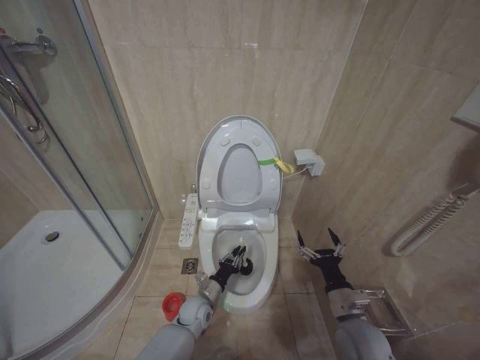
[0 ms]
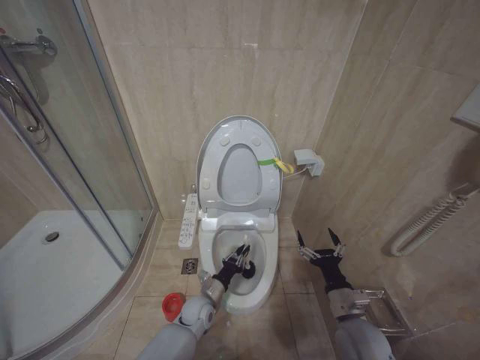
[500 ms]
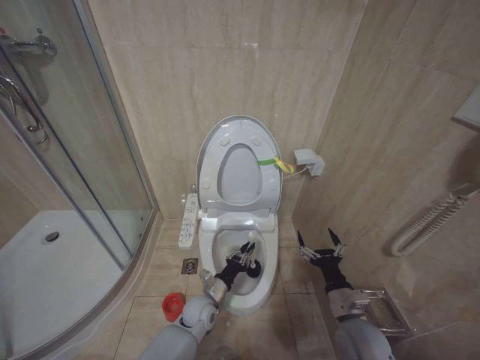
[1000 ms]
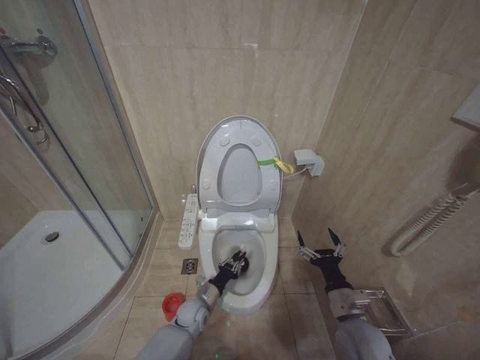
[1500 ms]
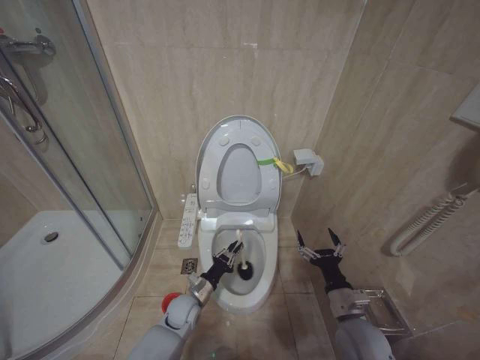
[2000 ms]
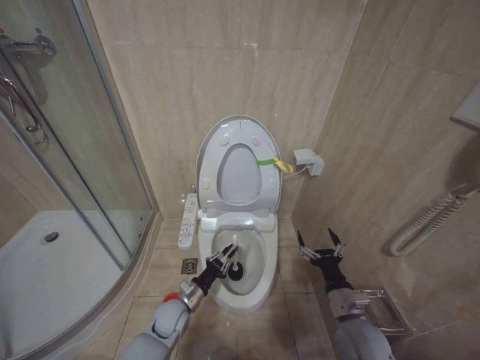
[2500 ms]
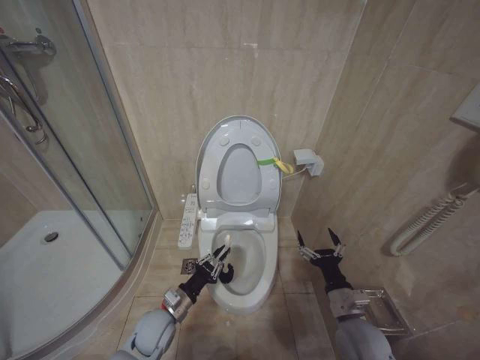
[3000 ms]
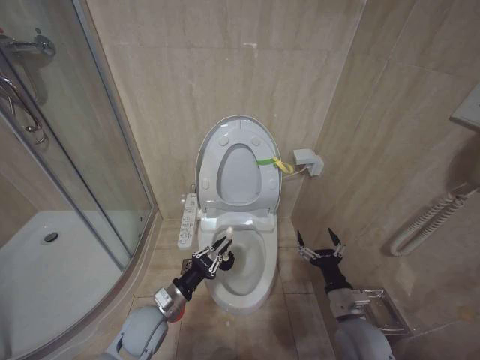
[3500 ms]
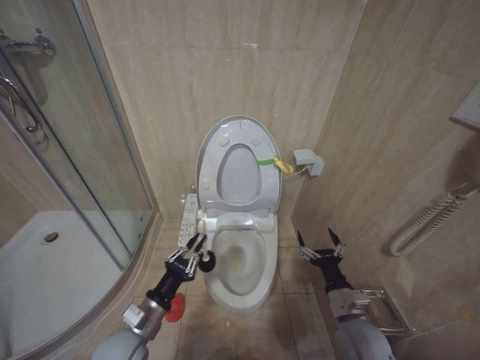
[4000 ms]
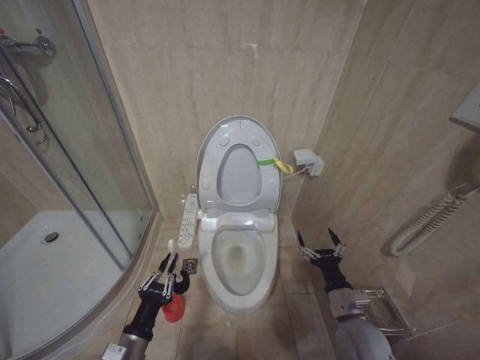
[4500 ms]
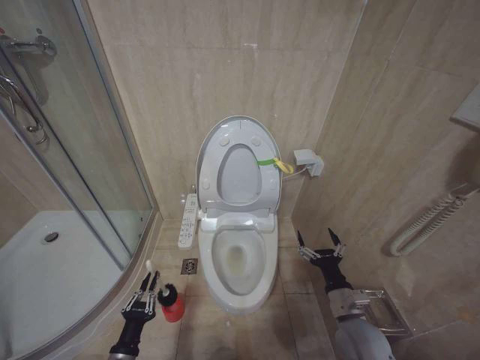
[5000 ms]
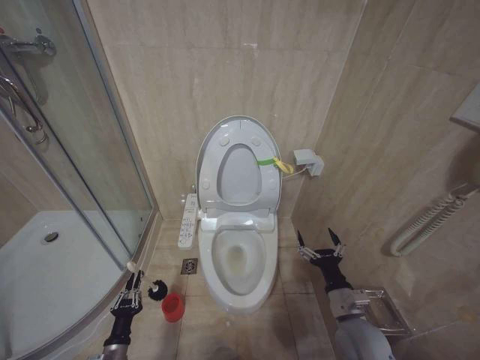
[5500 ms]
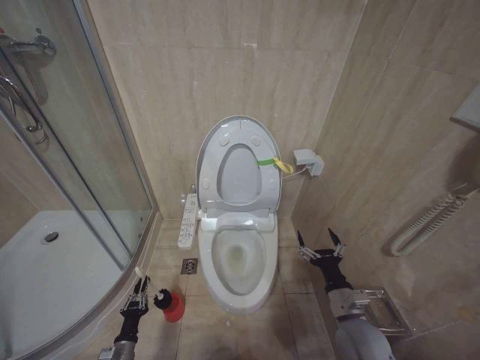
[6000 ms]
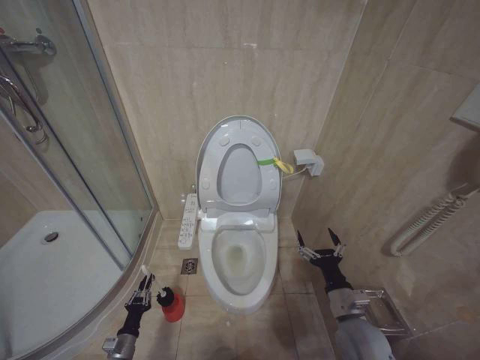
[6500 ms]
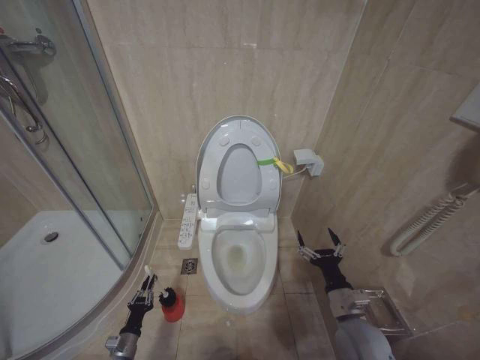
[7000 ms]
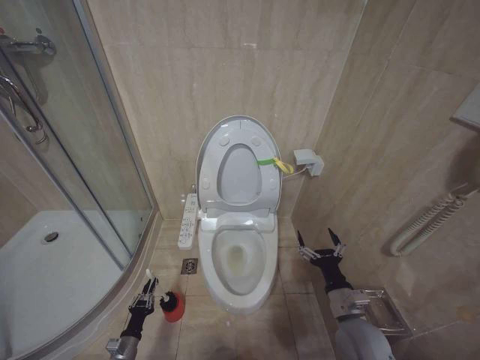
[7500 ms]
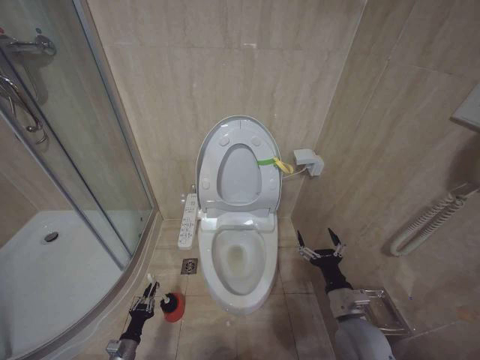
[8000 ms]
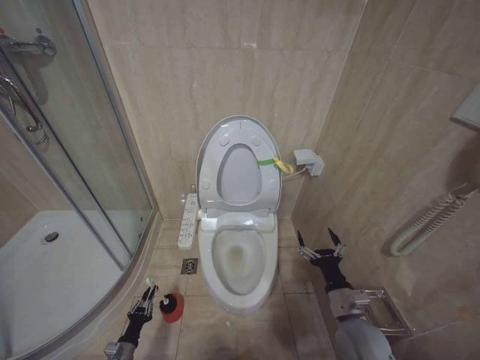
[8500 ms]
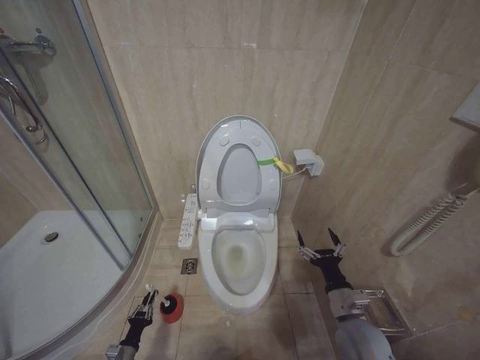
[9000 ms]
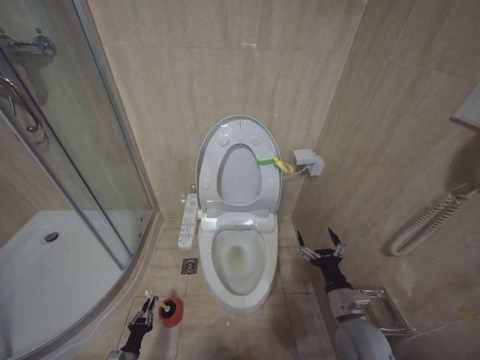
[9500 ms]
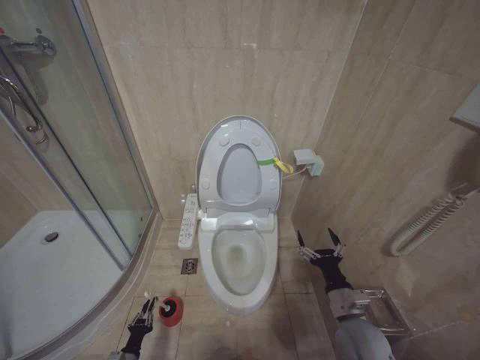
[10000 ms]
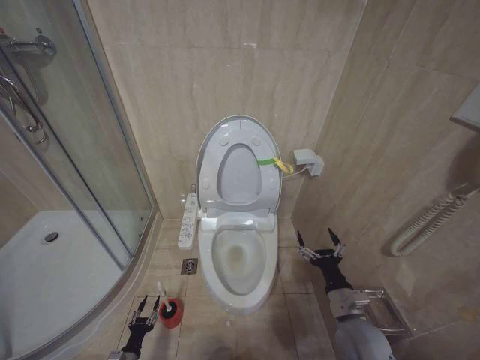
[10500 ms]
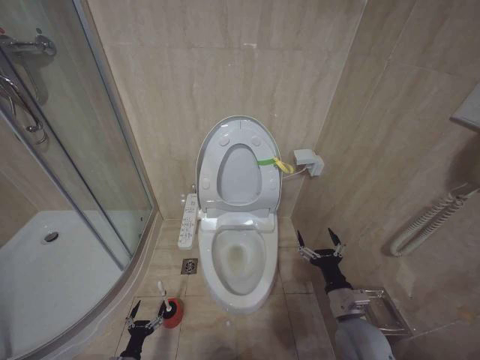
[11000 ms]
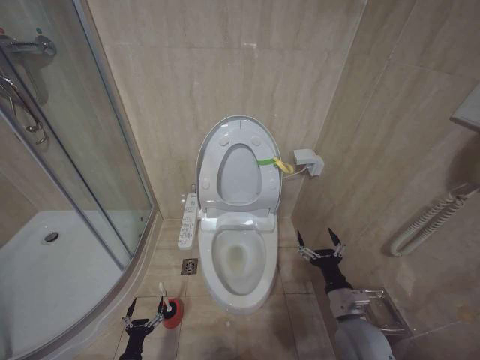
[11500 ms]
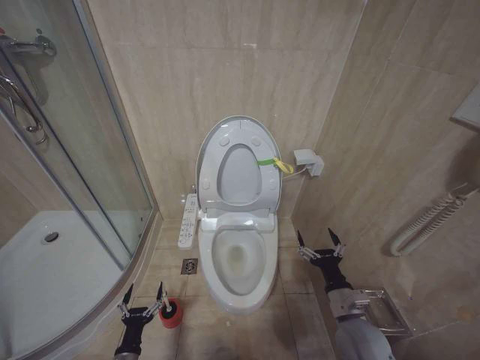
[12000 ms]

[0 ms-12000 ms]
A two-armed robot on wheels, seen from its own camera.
Task of the whole recording: Open the toilet lid, clean the toilet bowl with a toilet brush, close the toilet lid, and flush.
0 ms to 2000 ms: The grippers stay close to where they were, moving slightly.
2000 ms to 4000 ms: The left gripper heads upward, backward and to the left, covering approximately 20 cm.
4000 ms to 6000 ms: The left gripper goes approximately 30 cm downward and to the left.
6000 ms to 8000 ms: The left gripper goes some 5 cm downward.
8000 ms to 10000 ms: The grippers stay close to where they were, moving slightly.
10000 ms to 12000 ms: The left gripper moves upward and to the right, roughly 15 cm, and opens.

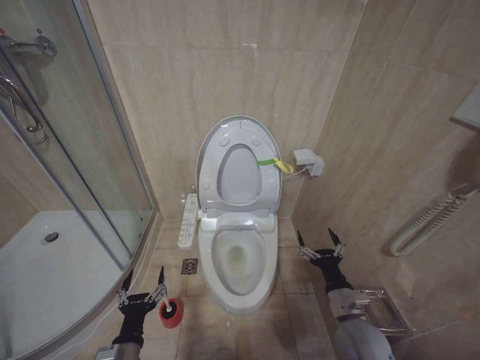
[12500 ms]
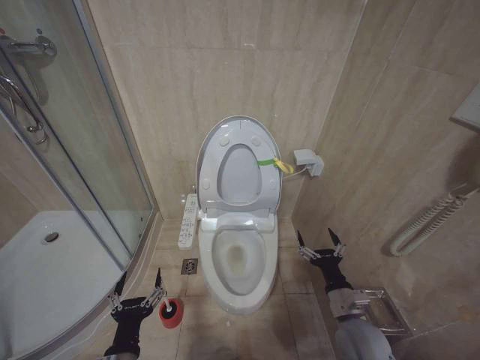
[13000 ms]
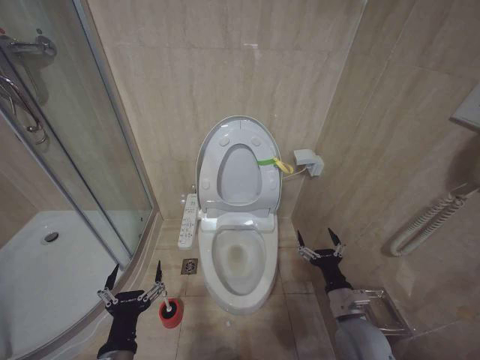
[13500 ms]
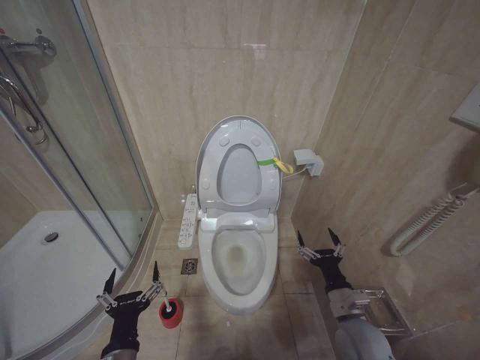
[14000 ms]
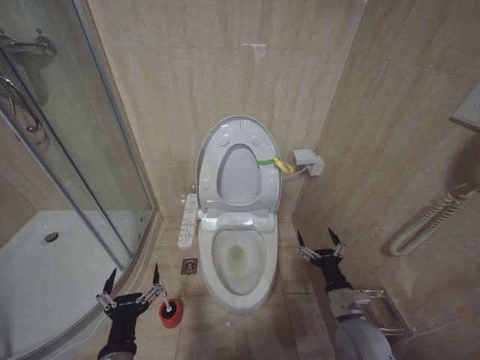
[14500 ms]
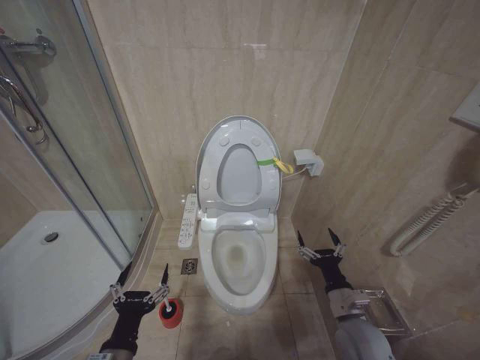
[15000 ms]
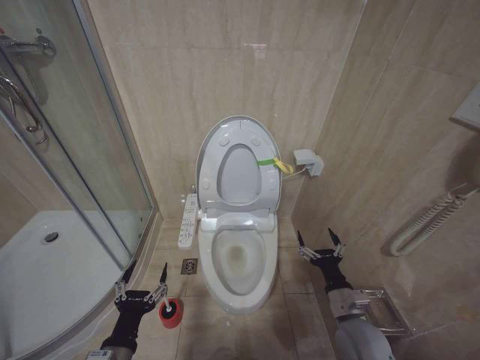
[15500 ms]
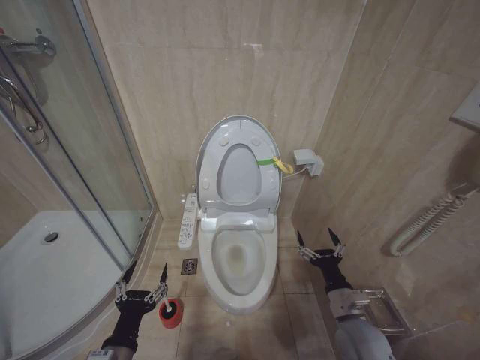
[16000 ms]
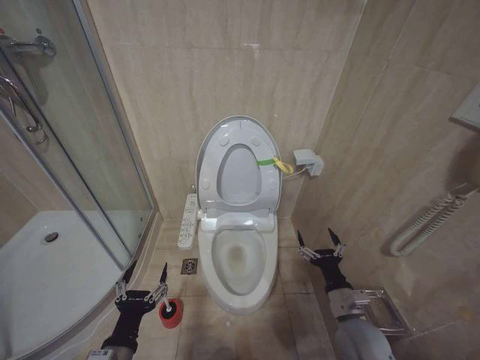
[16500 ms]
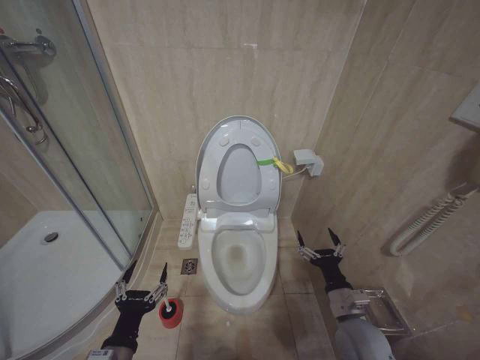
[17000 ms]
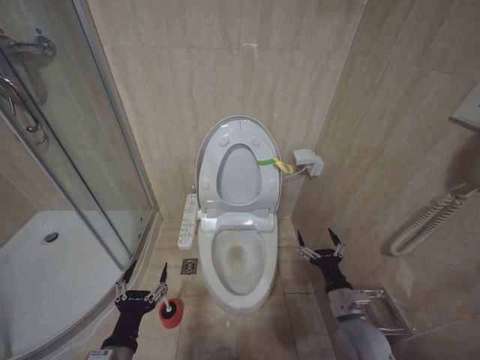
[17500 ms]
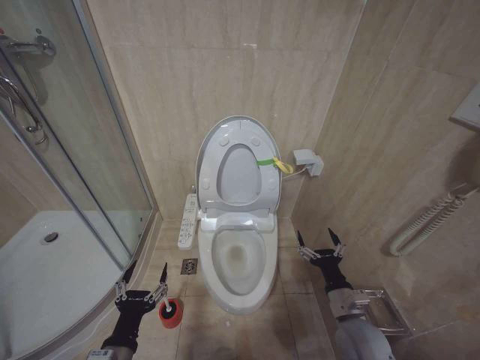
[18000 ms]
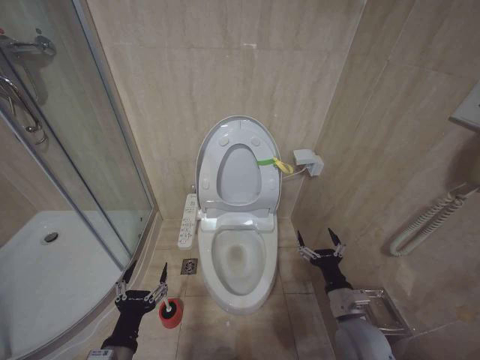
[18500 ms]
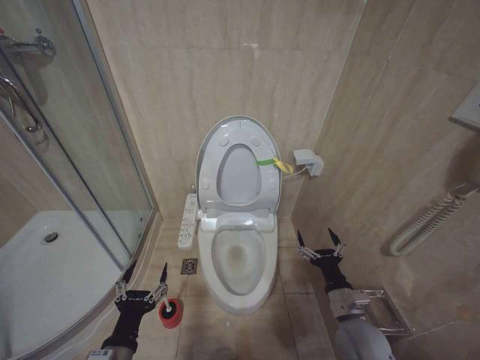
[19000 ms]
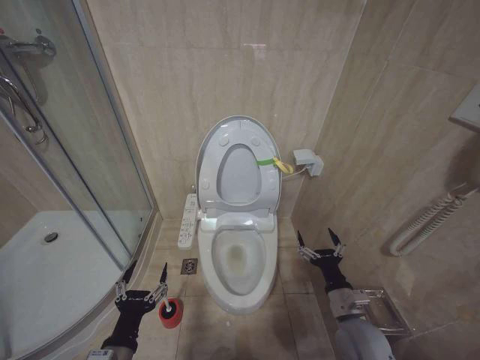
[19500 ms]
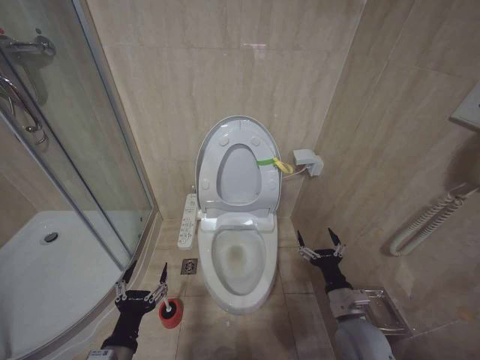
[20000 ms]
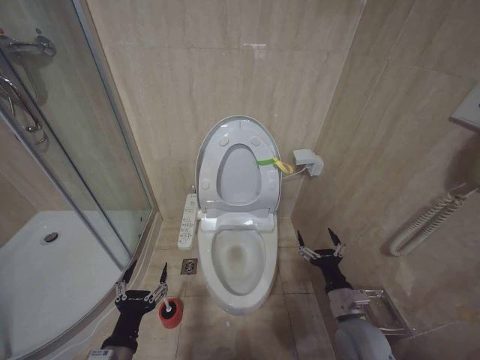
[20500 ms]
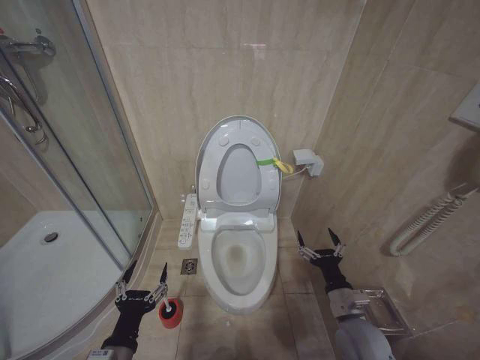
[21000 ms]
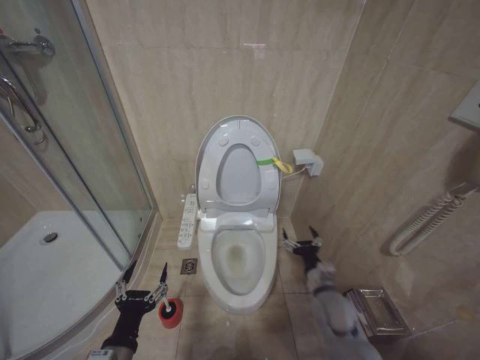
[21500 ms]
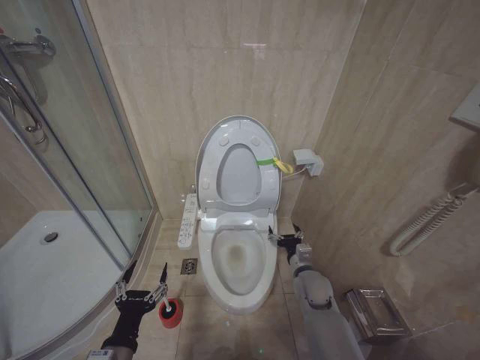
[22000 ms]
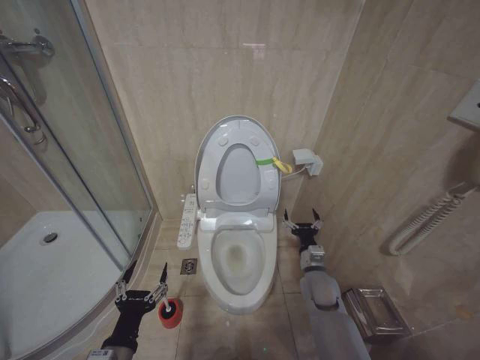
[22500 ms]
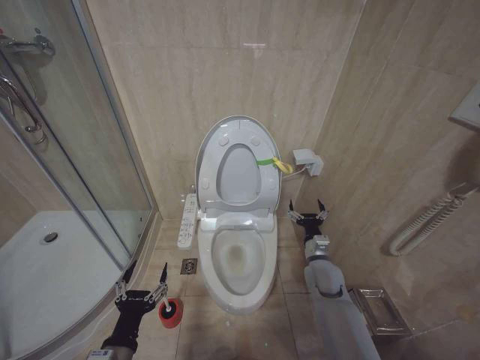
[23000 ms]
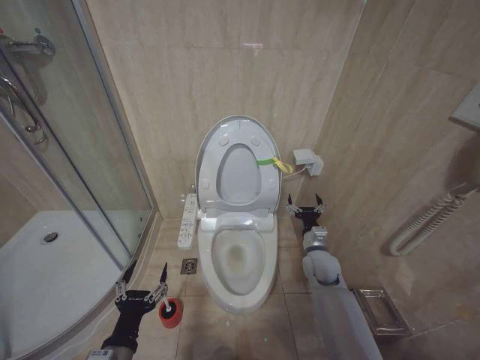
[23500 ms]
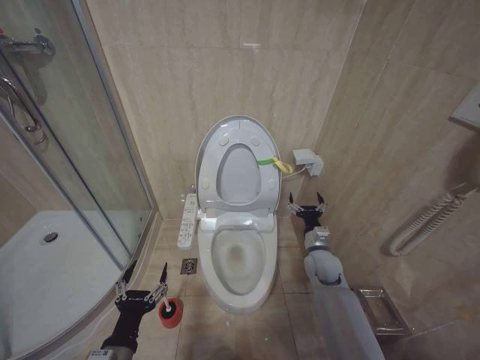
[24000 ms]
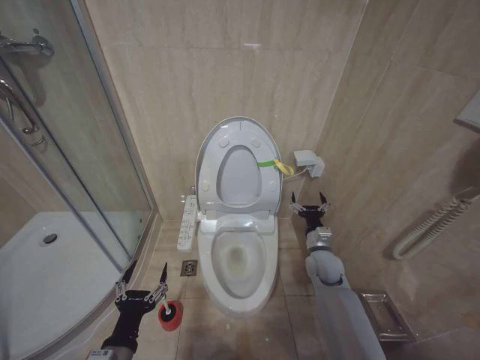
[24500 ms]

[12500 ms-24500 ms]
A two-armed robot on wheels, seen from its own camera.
Task of the whole recording: Open the toilet lid, clean the toilet bowl with a toilet brush, close the toilet lid, and flush.
12500 ms to 14500 ms: The left gripper goes approximately 5 cm upward.
14500 ms to 16500 ms: The grippers move only a little.
16500 ms to 20500 ms: Neither gripper changes place.
20500 ms to 22500 ms: The right gripper heads forward, covering some 10 cm.
22500 ms to 24500 ms: The right gripper goes roughly 5 cm forward.

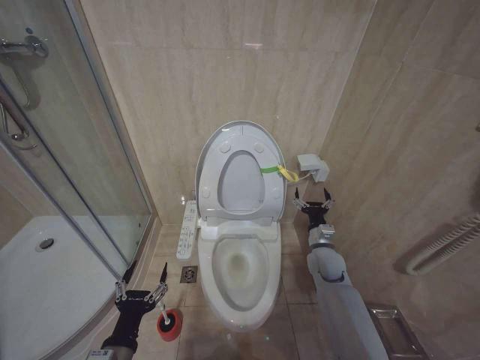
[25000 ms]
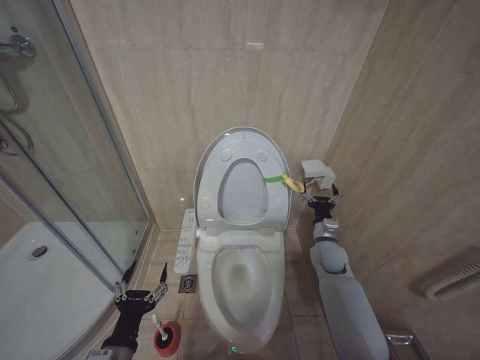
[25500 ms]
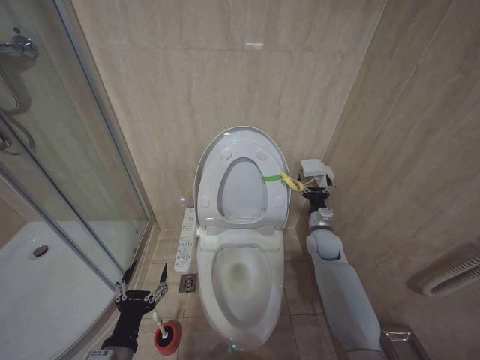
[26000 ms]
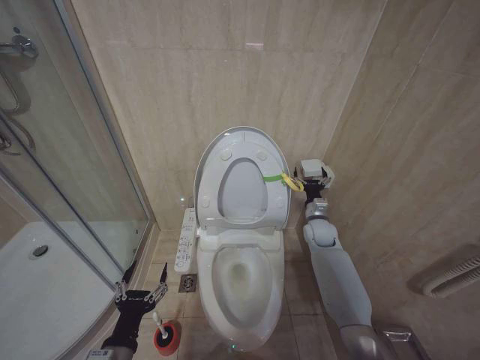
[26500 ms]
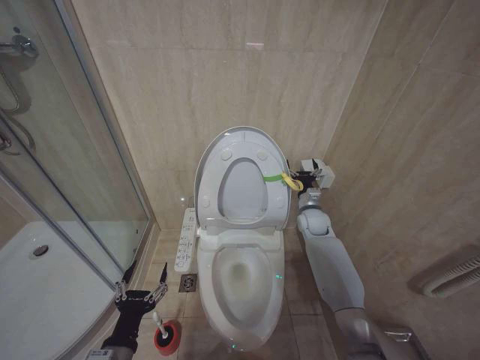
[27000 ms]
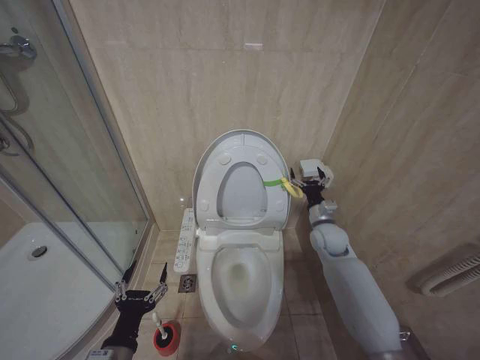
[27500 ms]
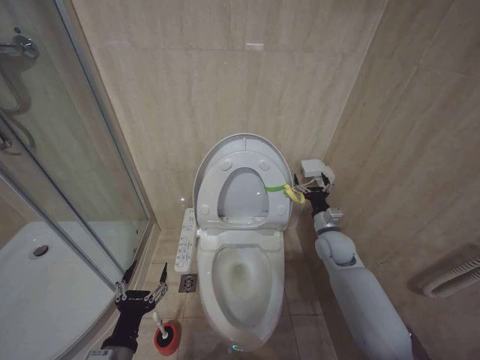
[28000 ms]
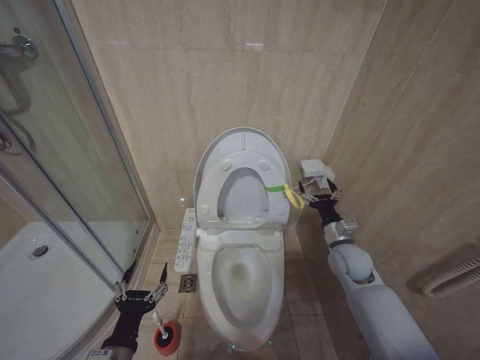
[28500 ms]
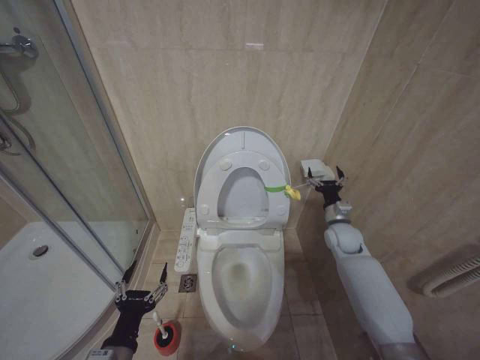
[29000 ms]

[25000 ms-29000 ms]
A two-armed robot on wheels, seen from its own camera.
Task of the whole recording: Open the toilet lid, clean the toilet bowl with a toilet brush, close the toilet lid, and flush.
25000 ms to 27000 ms: The right gripper is displaced forward by some 10 cm.
27000 ms to 29000 ms: The right gripper goes some 10 cm backward and to the right.
